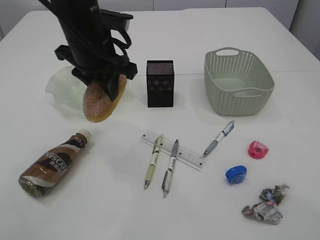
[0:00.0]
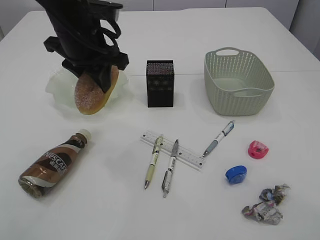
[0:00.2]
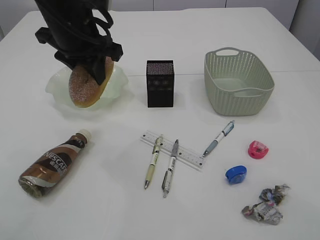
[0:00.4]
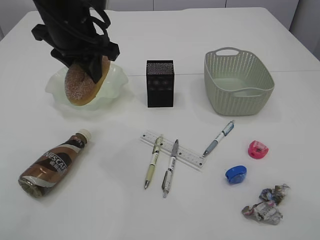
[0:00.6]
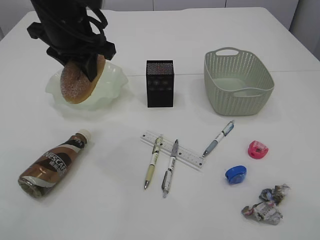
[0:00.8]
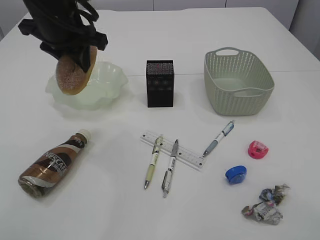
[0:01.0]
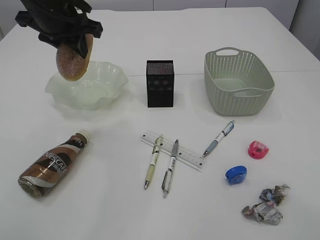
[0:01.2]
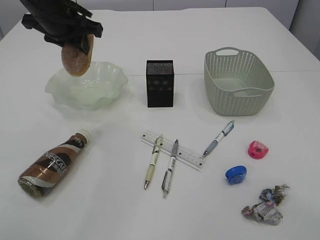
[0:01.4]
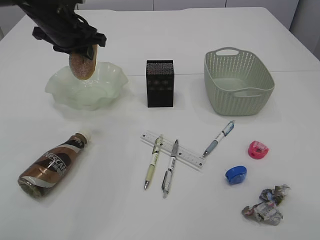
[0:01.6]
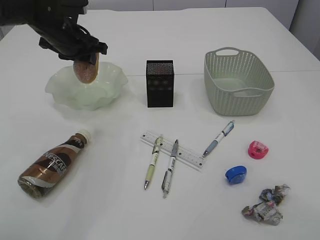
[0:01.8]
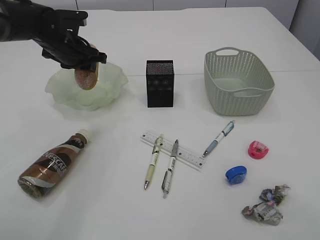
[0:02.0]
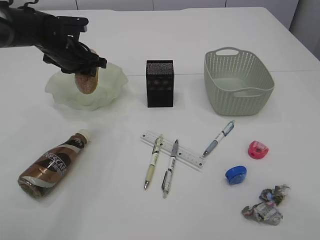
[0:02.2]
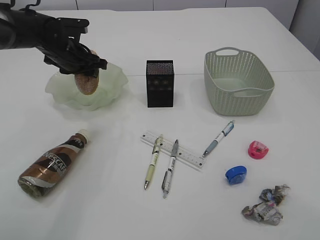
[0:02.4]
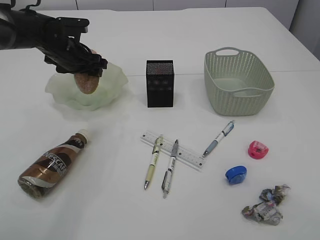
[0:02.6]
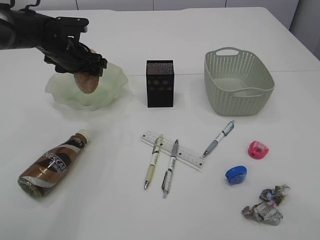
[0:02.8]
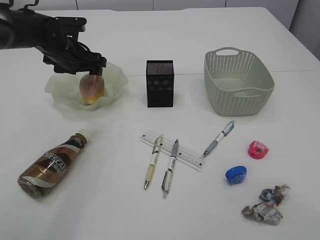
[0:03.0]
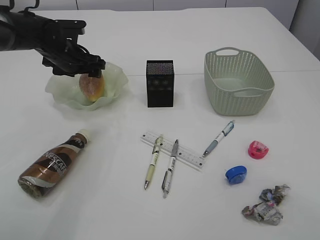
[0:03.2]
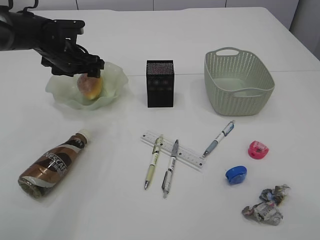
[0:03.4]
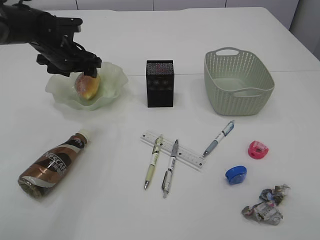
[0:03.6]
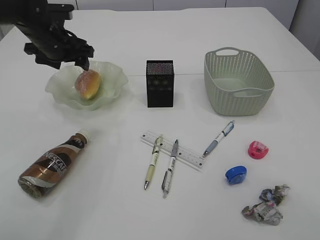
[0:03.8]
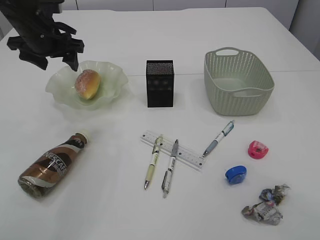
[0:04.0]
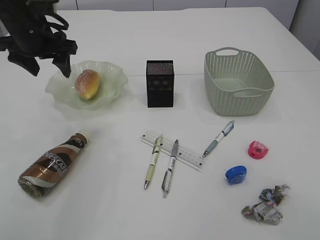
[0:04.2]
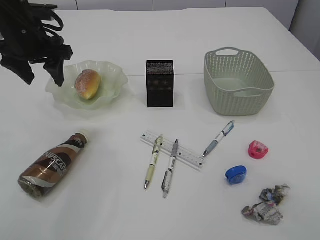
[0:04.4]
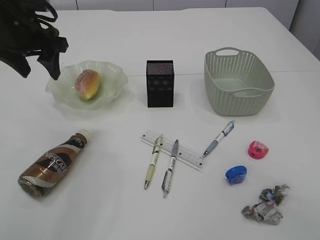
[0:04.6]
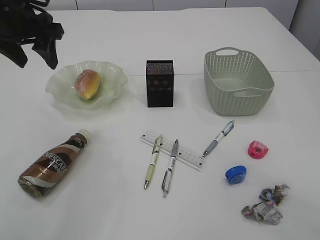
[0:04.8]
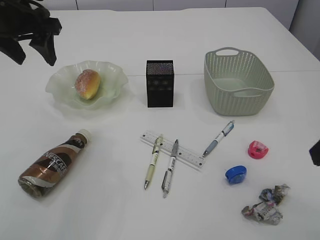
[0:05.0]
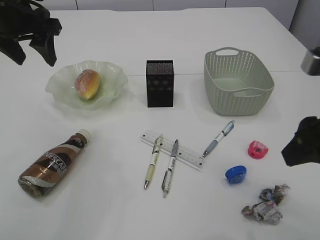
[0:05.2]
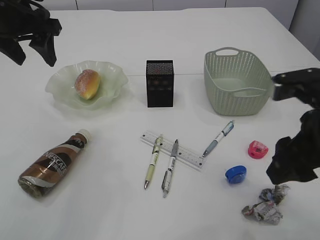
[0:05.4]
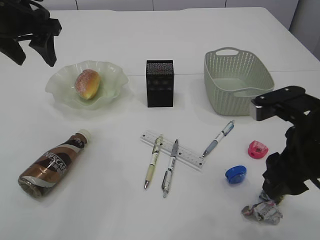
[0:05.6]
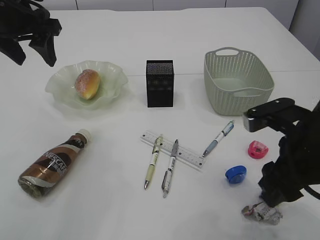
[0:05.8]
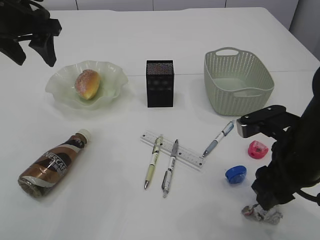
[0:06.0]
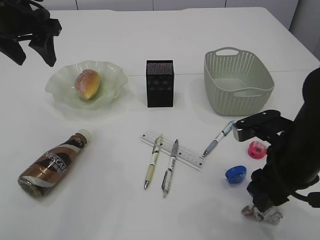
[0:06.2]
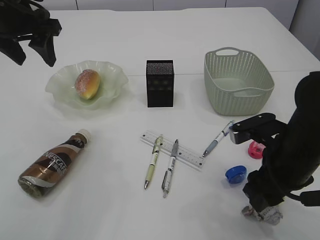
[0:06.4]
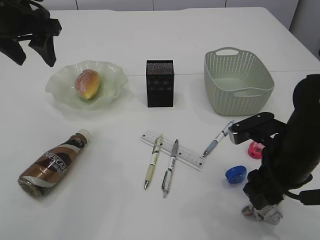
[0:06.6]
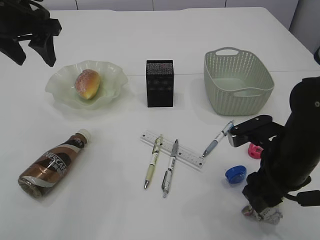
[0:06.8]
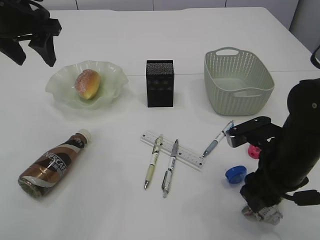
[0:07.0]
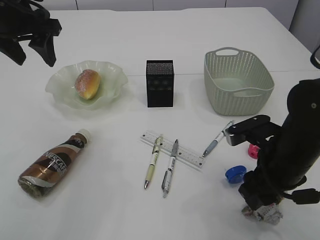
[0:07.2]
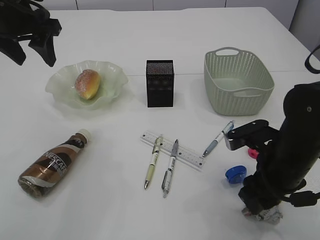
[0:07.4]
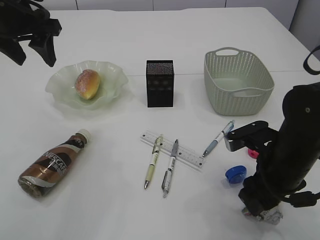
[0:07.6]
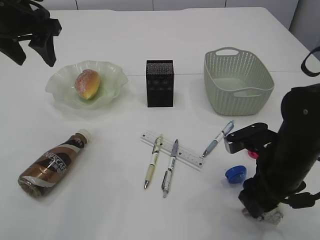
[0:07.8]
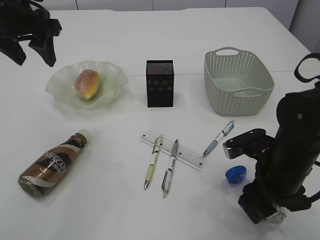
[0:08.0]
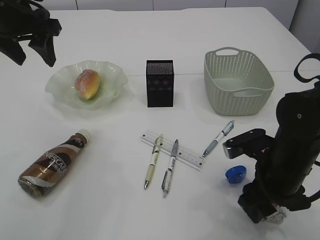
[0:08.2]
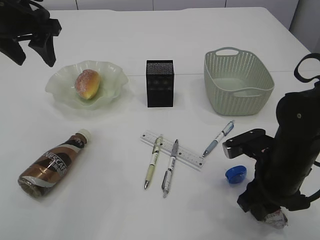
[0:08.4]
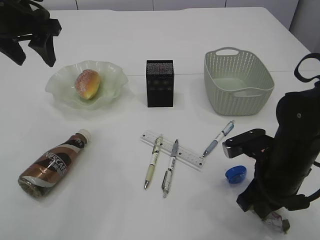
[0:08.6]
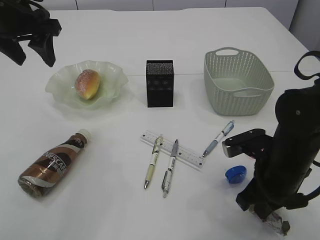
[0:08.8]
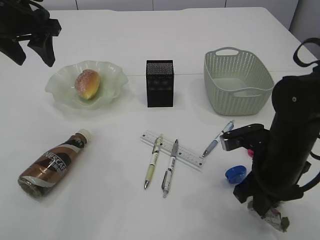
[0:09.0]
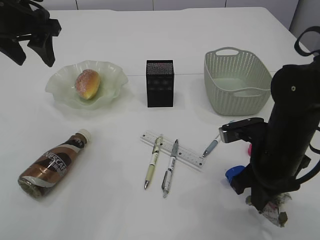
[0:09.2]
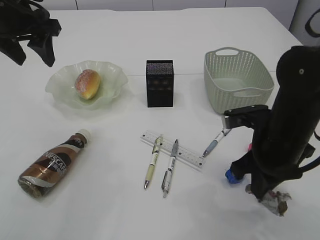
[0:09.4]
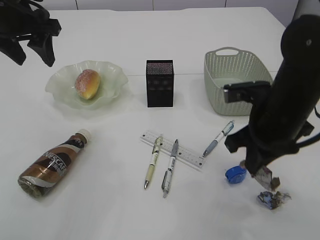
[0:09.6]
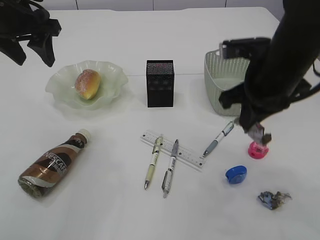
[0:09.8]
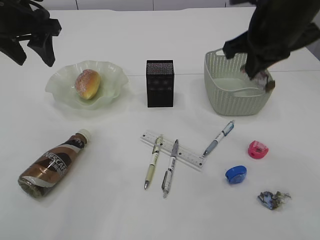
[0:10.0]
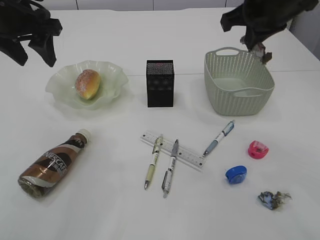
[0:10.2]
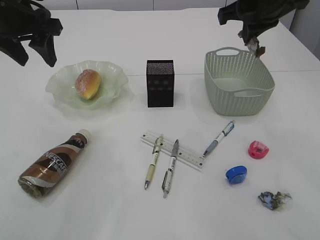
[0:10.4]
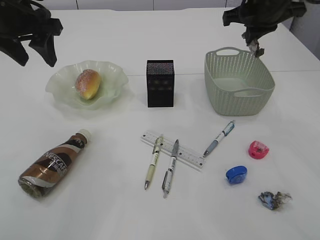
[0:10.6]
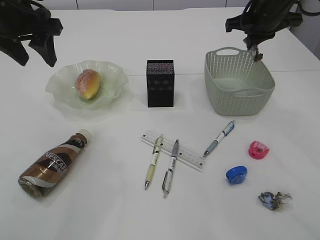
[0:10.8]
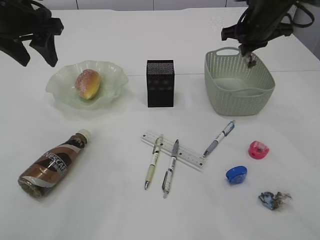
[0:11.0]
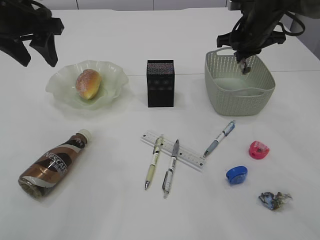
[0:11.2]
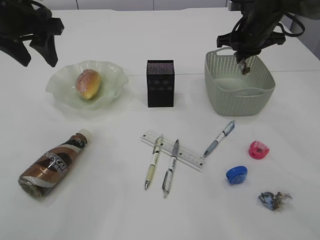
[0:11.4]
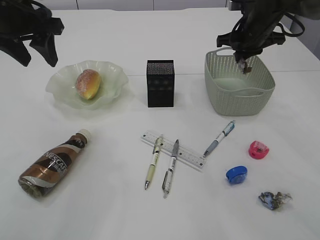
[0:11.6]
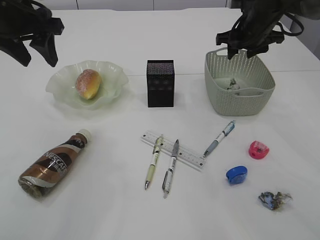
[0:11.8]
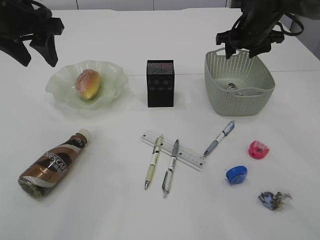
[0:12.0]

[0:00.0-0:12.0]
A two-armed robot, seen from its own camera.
Step, 0:00.0 to 0:03.8: place the bread in the plate.
Step, 0:04.0 to 0:09.6: Pick up the waste paper.
0:00.0 to 0:01.6: The left gripper goes approximately 10 cm forward and to the left.
0:01.6 to 0:03.0: The left gripper moves downward, some 10 cm, and opens.
0:03.0 to 0:04.4: The left gripper travels upward and backward by about 10 cm.
0:04.4 to 0:06.0: The right gripper shifts some 20 cm downward, forward and to the left. Meanwhile the left gripper travels upward by roughly 5 cm.
0:06.0 to 0:07.6: The right gripper heads downward, covering about 5 cm.
0:07.6 to 0:09.0: The right gripper closes.
0:09.0 to 0:10.4: The right gripper goes roughly 25 cm upward and forward.
0:10.4 to 0:12.0: The right gripper heads forward and downward, covering about 15 cm, and opens up.

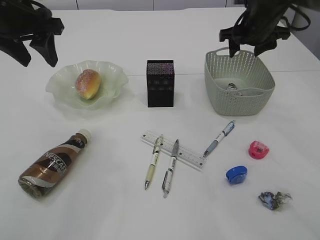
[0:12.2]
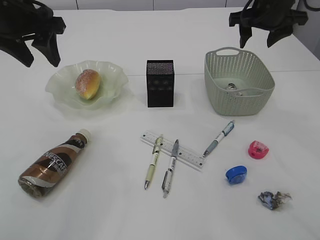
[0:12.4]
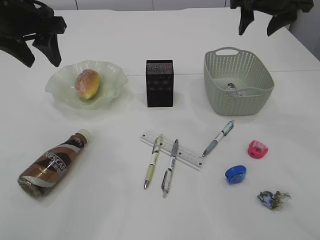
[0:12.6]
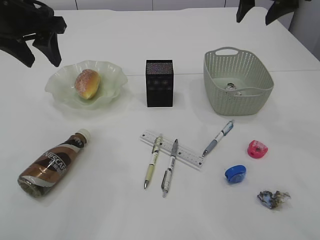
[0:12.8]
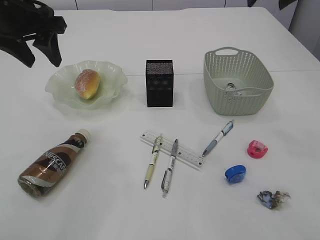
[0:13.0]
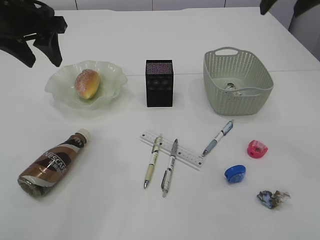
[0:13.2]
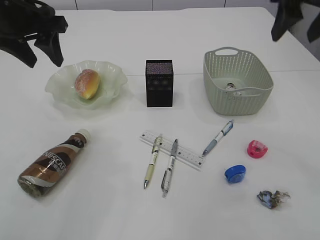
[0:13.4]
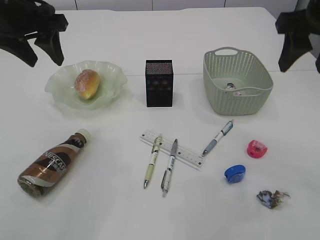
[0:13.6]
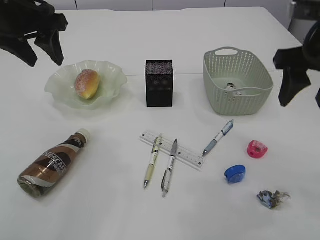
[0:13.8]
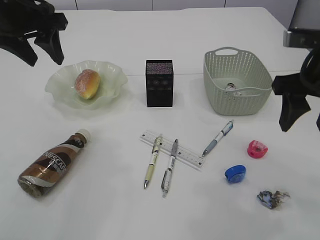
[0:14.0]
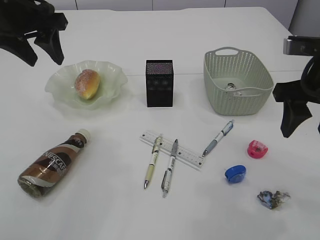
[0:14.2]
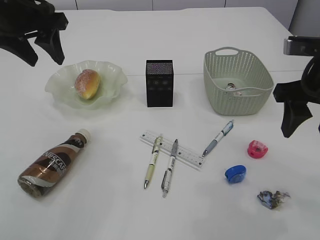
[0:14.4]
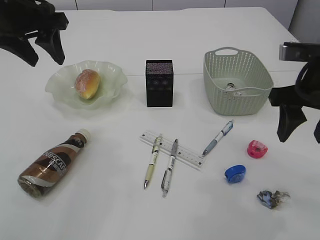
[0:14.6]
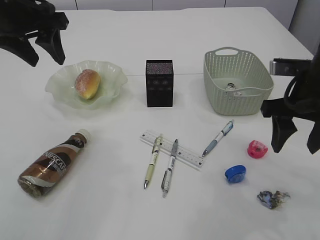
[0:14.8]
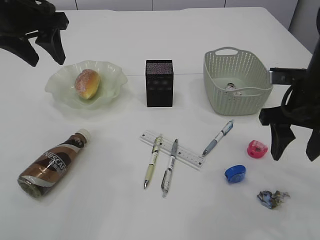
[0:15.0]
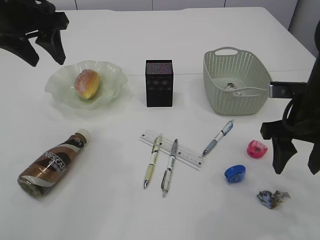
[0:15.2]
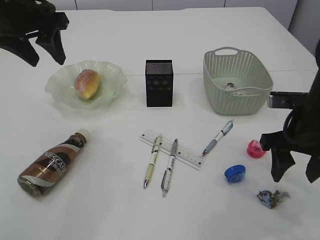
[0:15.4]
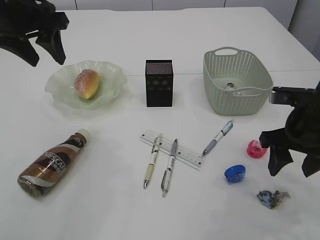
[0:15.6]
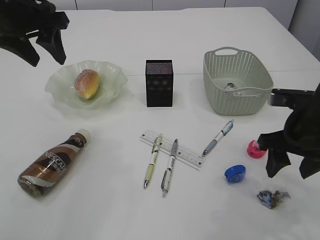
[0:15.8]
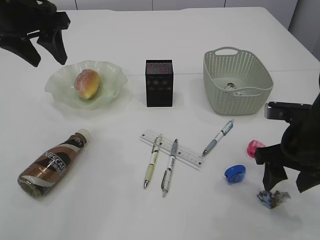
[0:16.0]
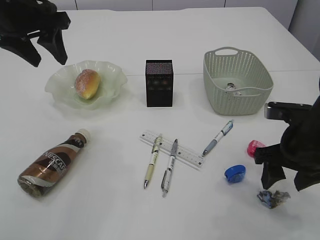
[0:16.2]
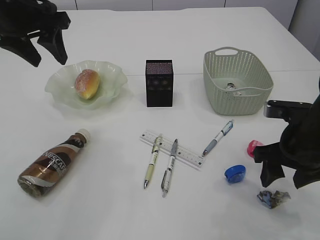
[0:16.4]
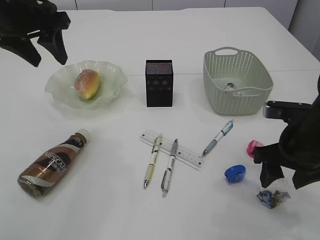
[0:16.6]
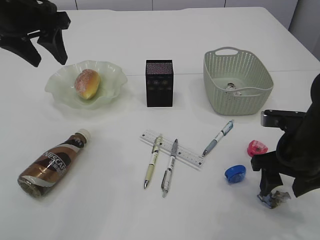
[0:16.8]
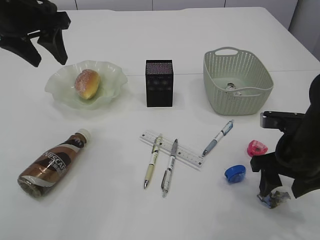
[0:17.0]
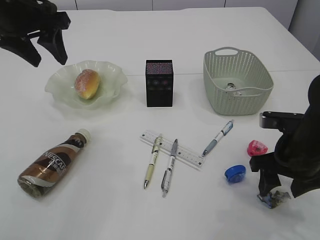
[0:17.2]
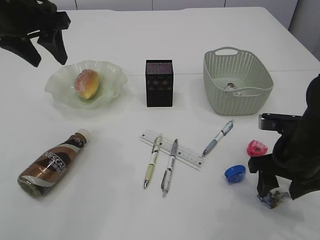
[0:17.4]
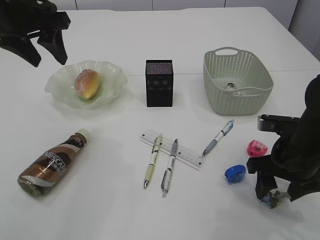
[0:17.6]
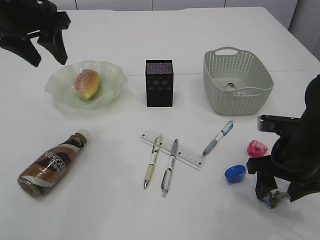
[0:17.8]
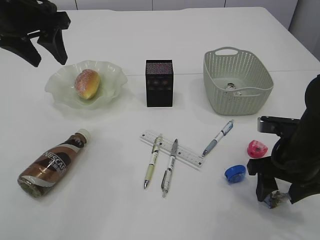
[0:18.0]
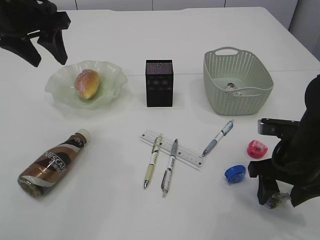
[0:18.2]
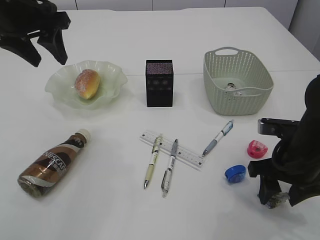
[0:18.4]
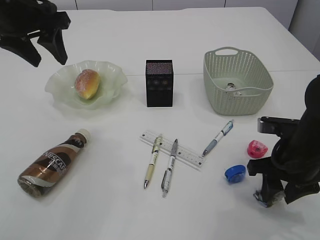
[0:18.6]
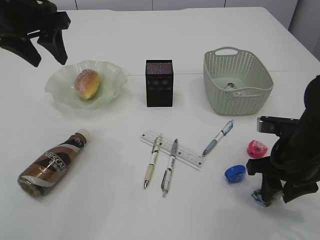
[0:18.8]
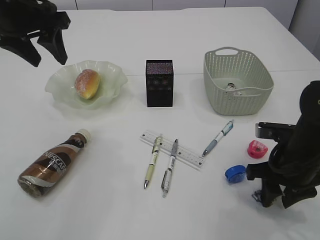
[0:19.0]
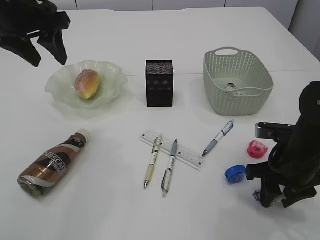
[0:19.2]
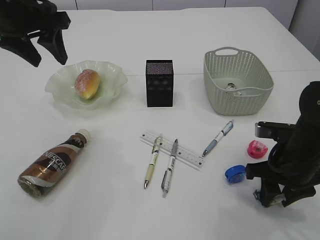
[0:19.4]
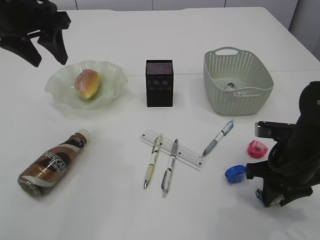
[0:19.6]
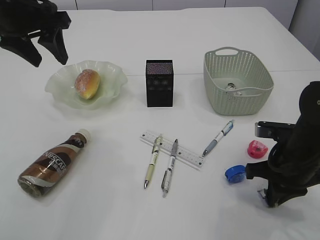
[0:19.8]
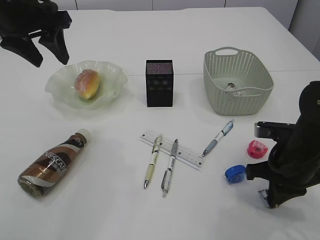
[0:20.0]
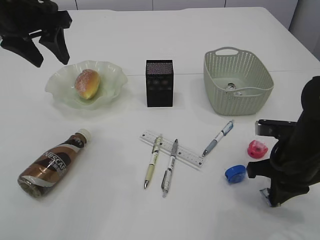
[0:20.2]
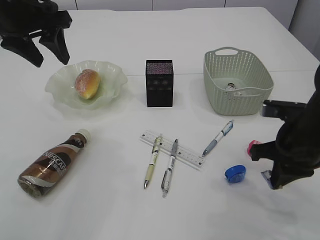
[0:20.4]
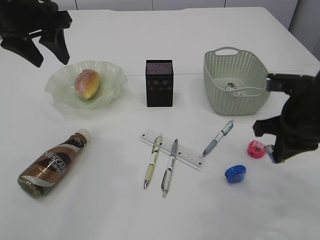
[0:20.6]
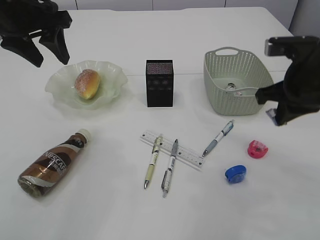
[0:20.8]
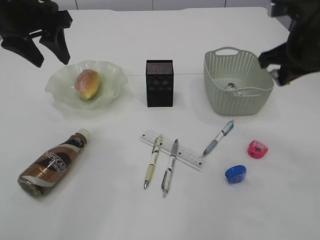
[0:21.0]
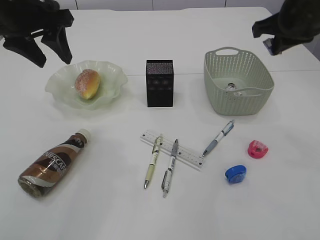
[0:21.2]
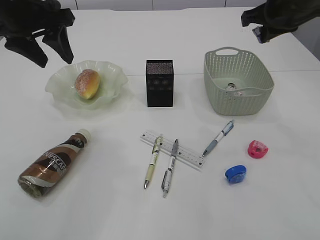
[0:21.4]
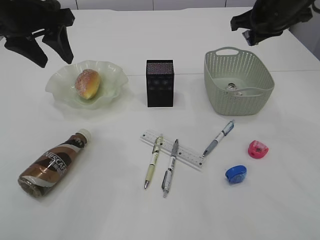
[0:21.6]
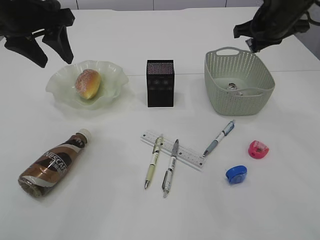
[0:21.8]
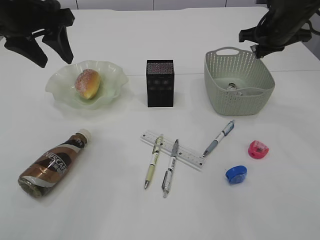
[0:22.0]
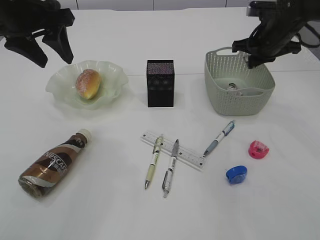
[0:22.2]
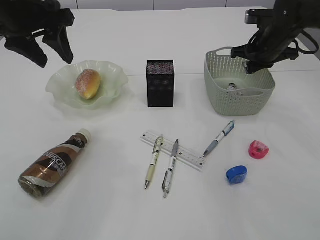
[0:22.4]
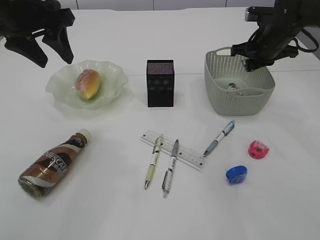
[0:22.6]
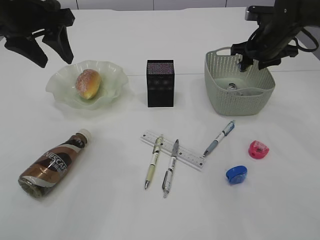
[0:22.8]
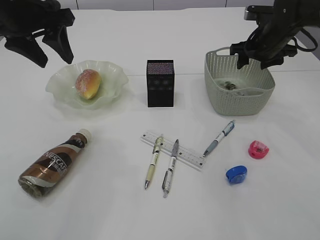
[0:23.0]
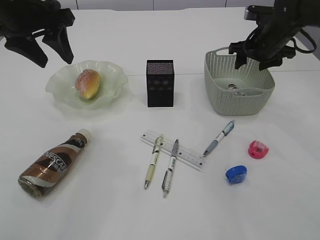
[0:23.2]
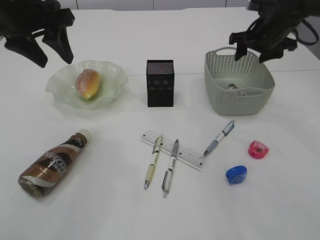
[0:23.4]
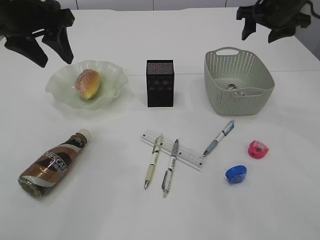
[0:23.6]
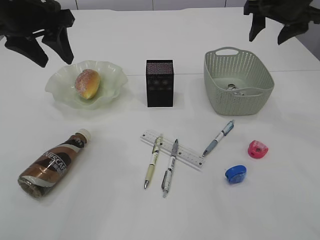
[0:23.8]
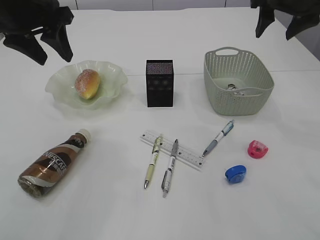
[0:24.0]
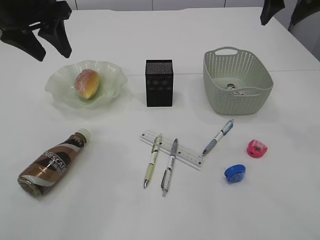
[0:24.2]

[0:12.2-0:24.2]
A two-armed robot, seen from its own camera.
Step, 0:12.2 to 0:20.6: Pick up the waste paper.
Step, 0:20.8 to 0:23.4: Place the waste paper in the basket.
0:12.2 to 0:13.8: The right gripper shifts about 20 cm backward.
0:13.8 to 0:15.2: The right gripper shifts approximately 10 cm downward.
0:15.2 to 0:16.6: The right gripper moves some 5 cm.
0:16.6 to 0:18.2: There are only small adjustments of the grippers.
0:18.2 to 0:19.8: The right gripper closes its fingers.
0:19.8 to 0:21.2: The right gripper moves upward and forward, roughly 20 cm.
0:21.2 to 0:22.6: The right gripper heads forward and downward, covering approximately 15 cm.
0:22.6 to 0:24.2: The right gripper shifts approximately 15 cm upward and backward, and opens up.
